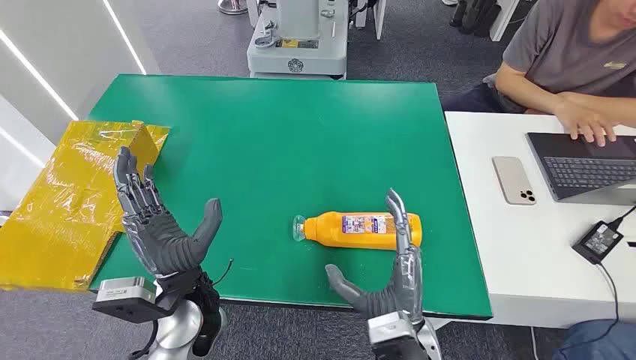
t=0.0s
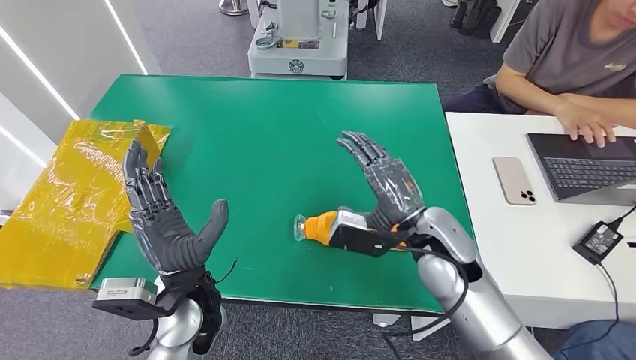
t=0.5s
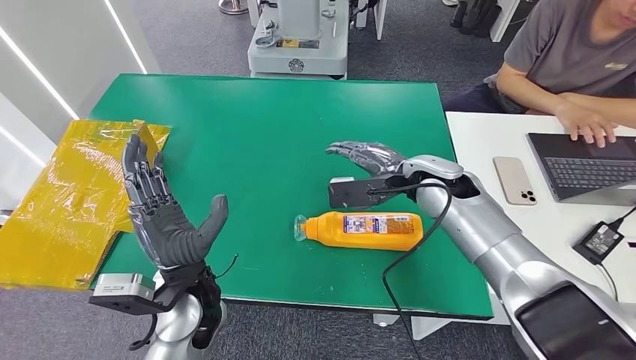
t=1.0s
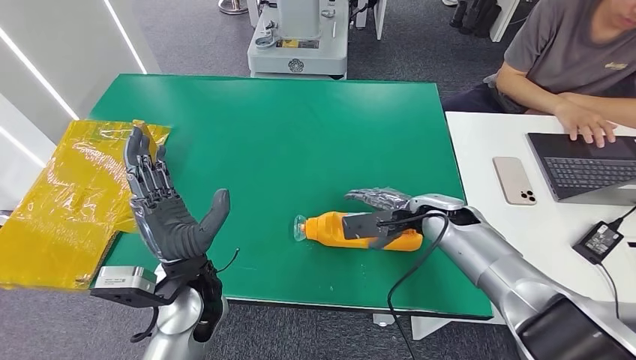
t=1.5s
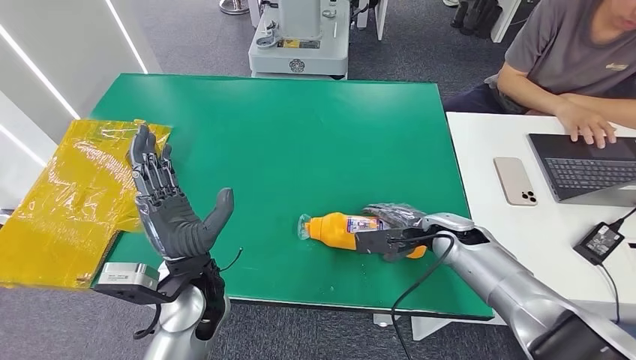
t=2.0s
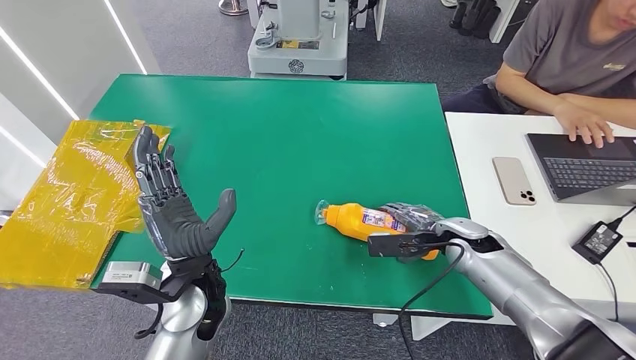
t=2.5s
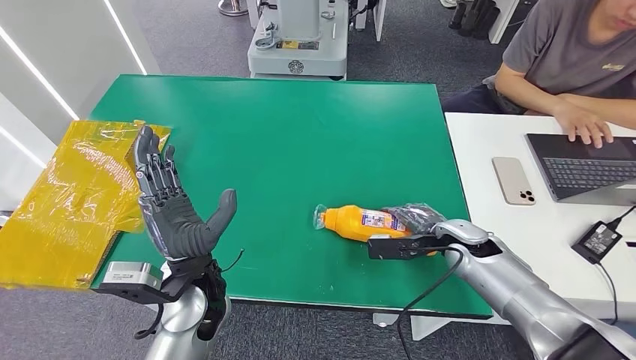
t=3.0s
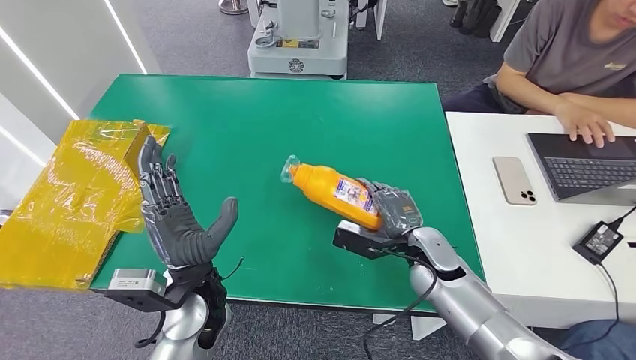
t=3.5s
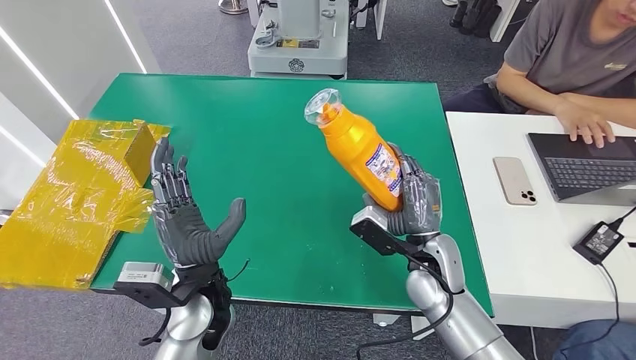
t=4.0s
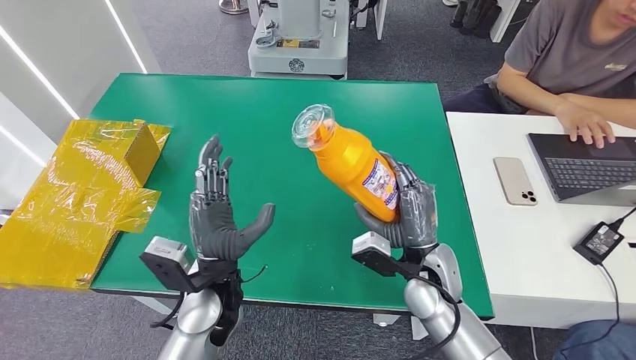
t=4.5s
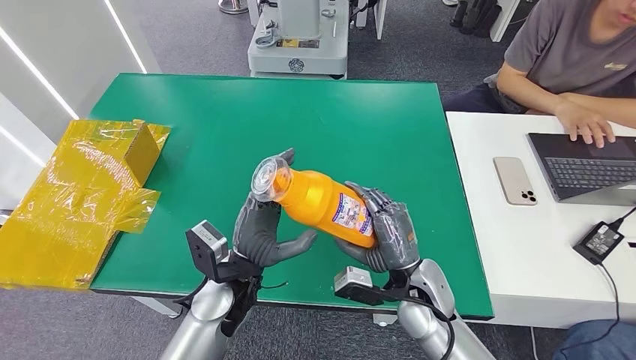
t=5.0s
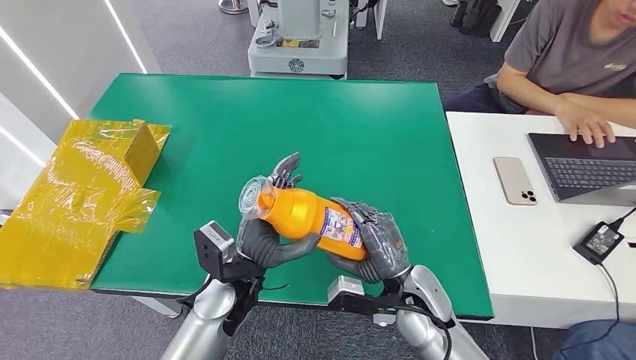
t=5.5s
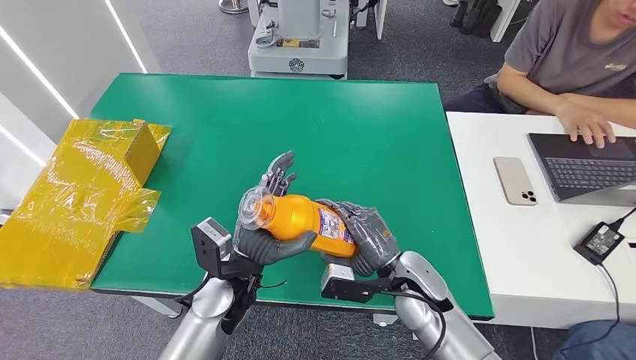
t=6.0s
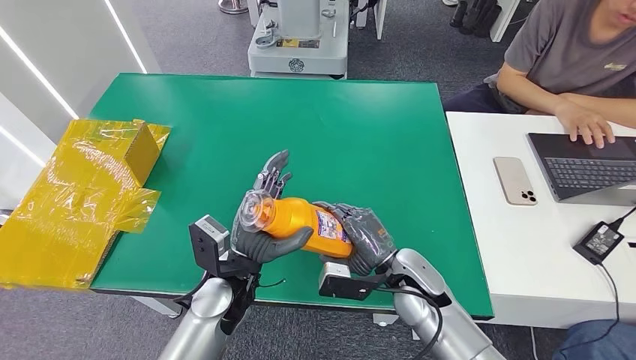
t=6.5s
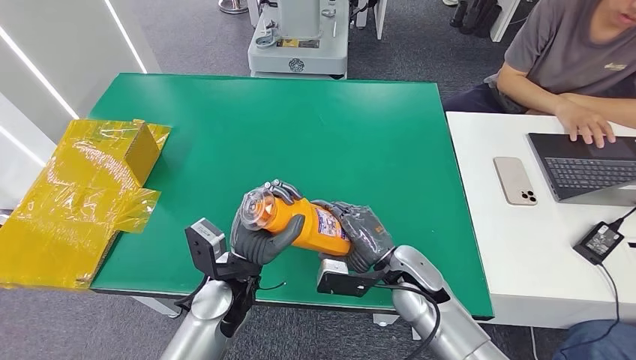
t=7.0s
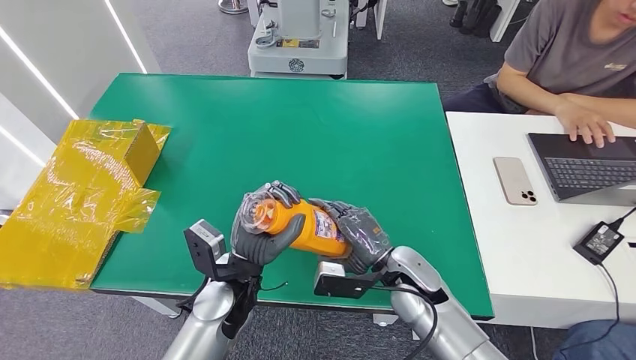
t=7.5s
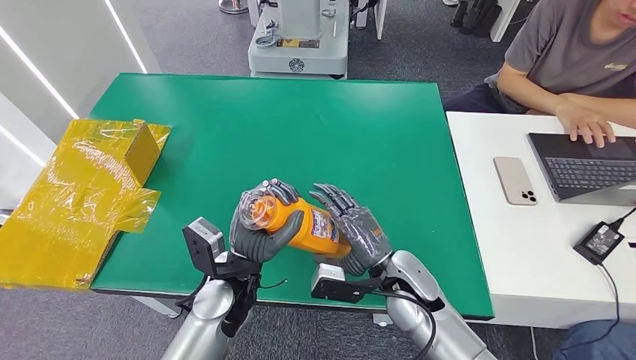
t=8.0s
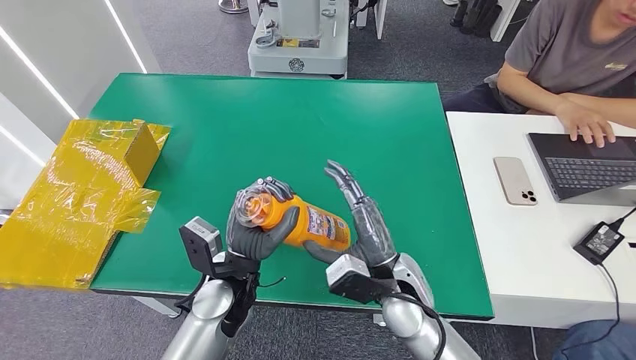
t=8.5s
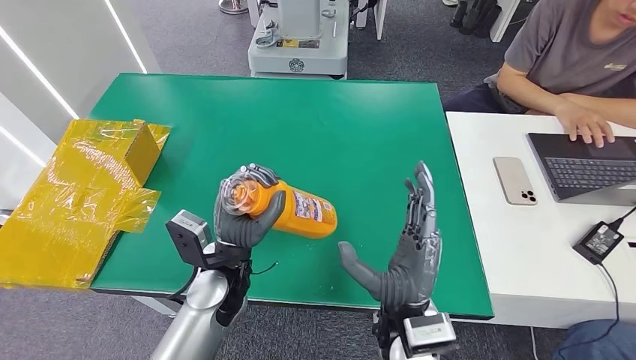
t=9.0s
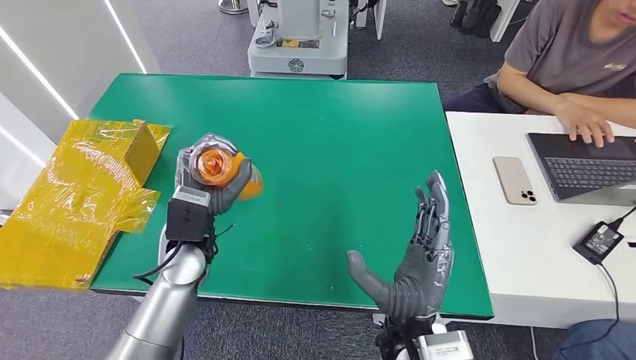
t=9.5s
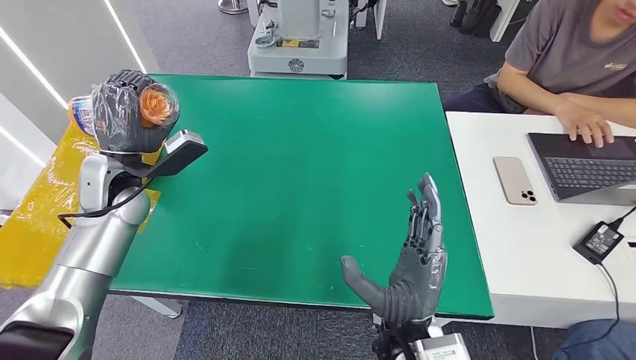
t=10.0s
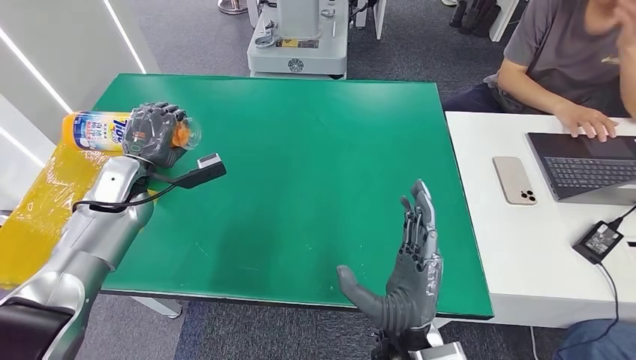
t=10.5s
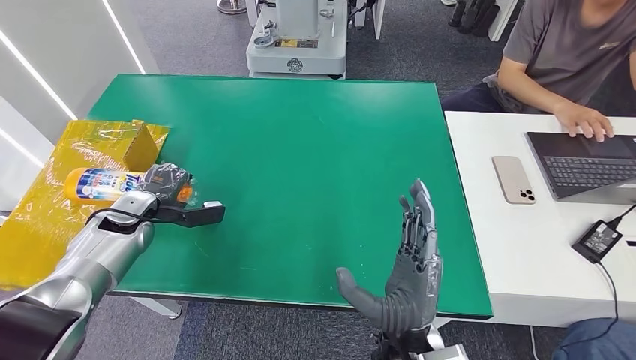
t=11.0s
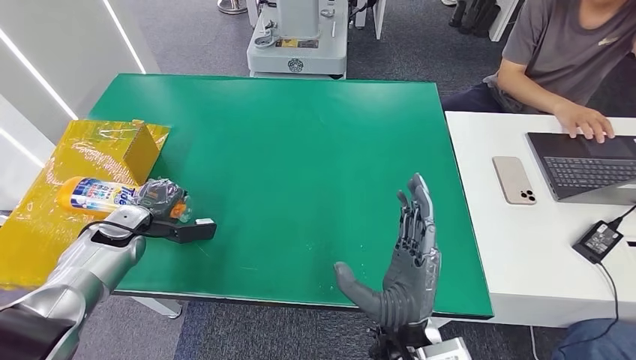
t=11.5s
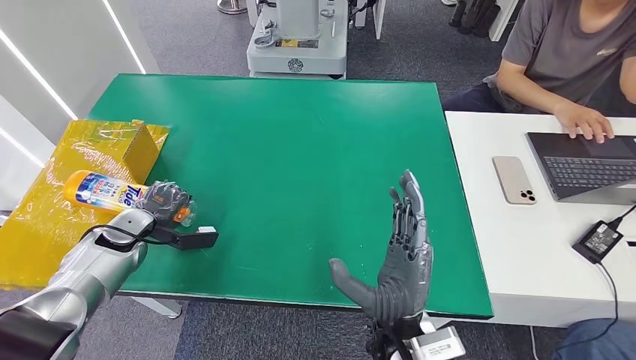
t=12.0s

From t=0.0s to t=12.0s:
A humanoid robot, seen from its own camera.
Step, from t=0.0s to t=4.0s: Pick up the bottle from the table.
From t=2.0s to t=4.0s: The right hand goes some 10 cm to the left and backward.
From t=6.0s to t=8.0s: The hands make only small movements.
From t=8.0s to t=10.0s: The left hand travels to the left, forward and upward by roughly 25 cm. Meanwhile the right hand travels backward, to the left and upward by roughly 15 cm.
From t=10.0s to t=12.0s: The left hand heads downward and to the left, covering approximately 15 cm.

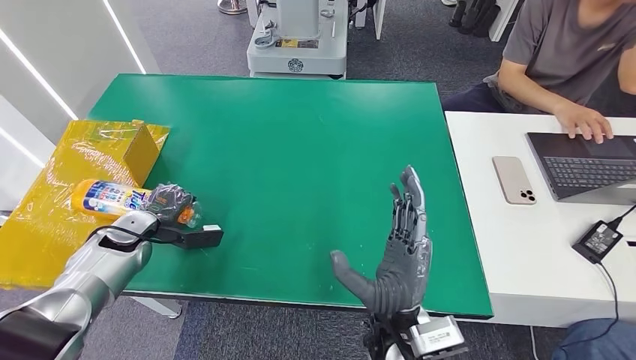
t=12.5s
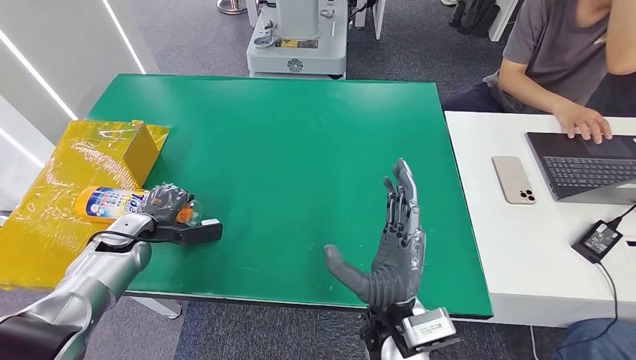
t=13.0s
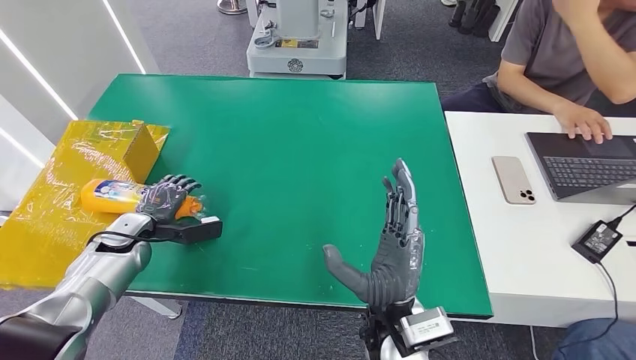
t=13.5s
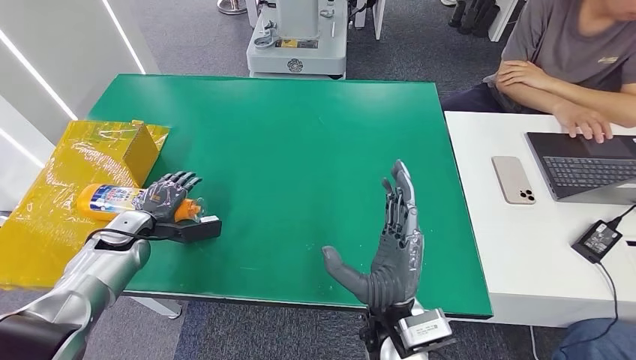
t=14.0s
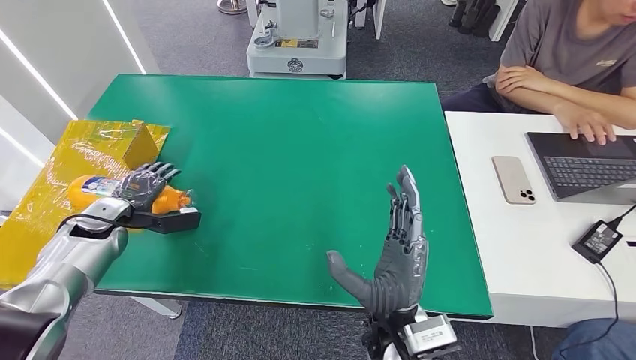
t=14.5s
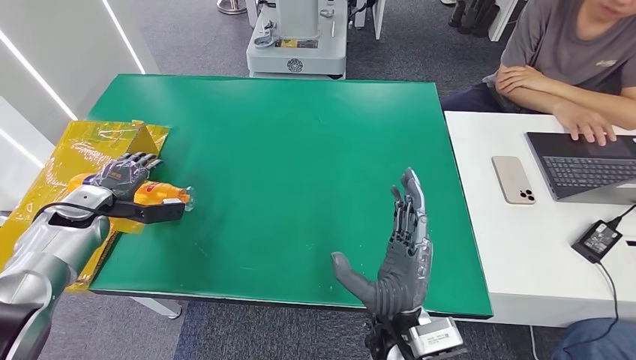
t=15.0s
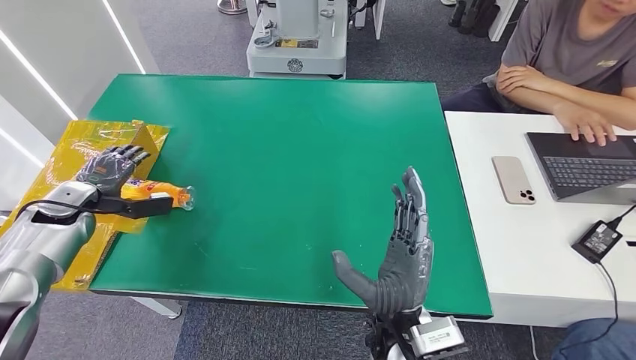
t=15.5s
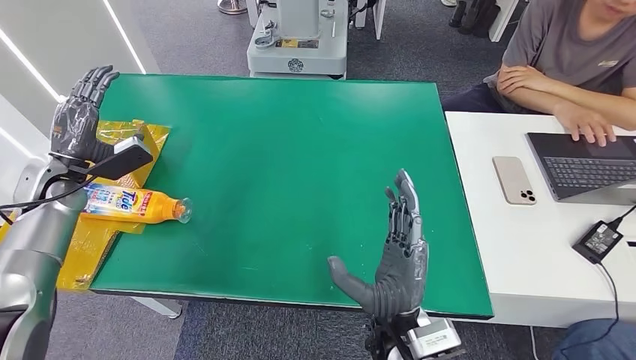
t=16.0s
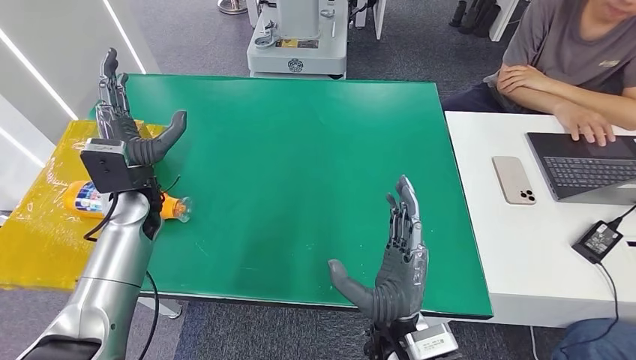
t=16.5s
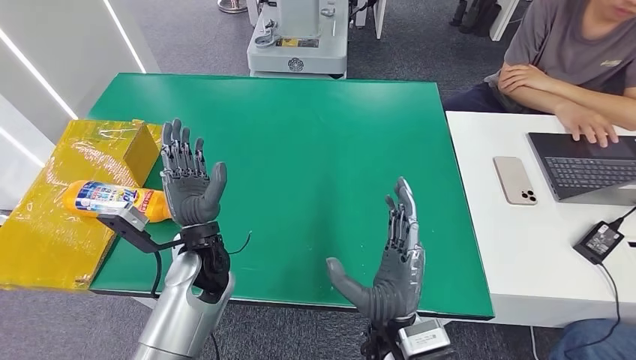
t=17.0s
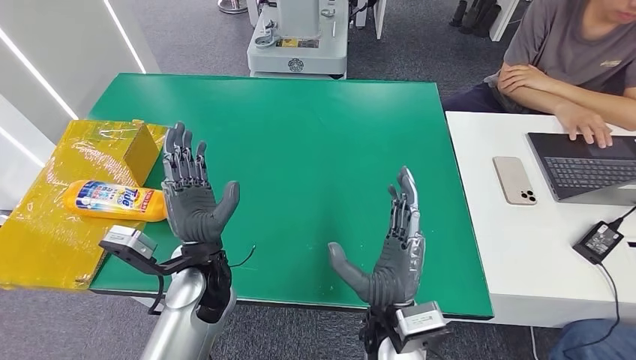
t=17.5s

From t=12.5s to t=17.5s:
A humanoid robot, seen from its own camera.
Step, from t=12.5s to t=17.5s: Turn the bottle to the front side.
From t=12.5s to t=15.0s: The left hand shifts about 10 cm to the left and upward.
From t=15.0s to t=17.5s: The left hand goes about 30 cm to the right.

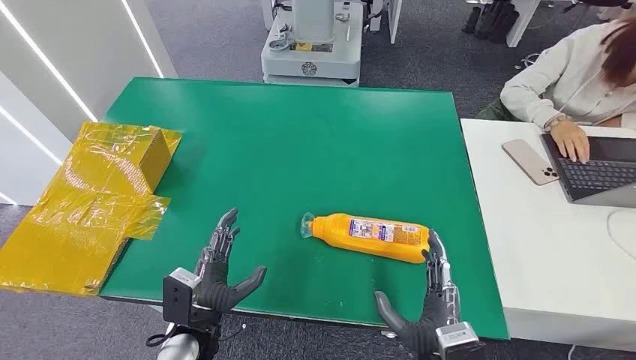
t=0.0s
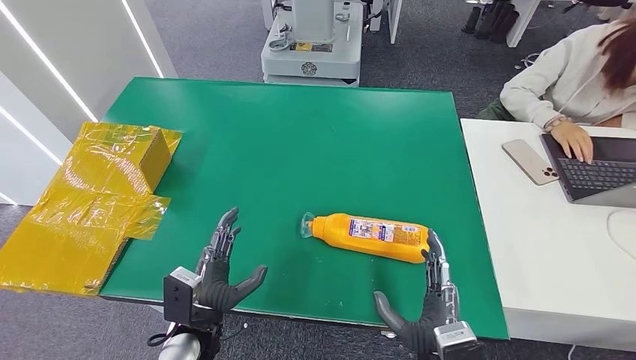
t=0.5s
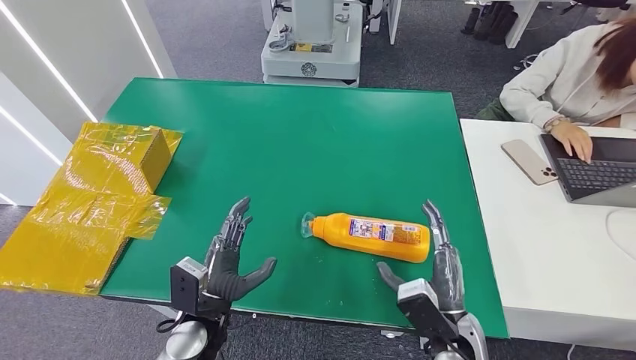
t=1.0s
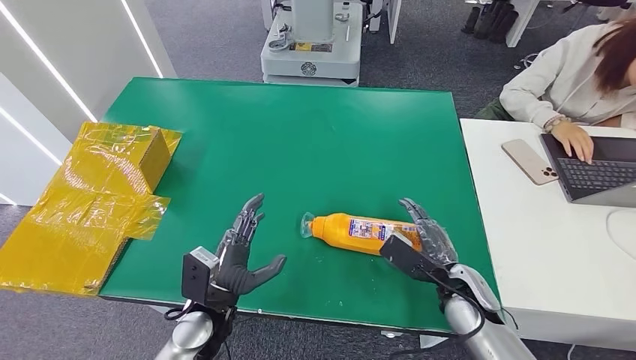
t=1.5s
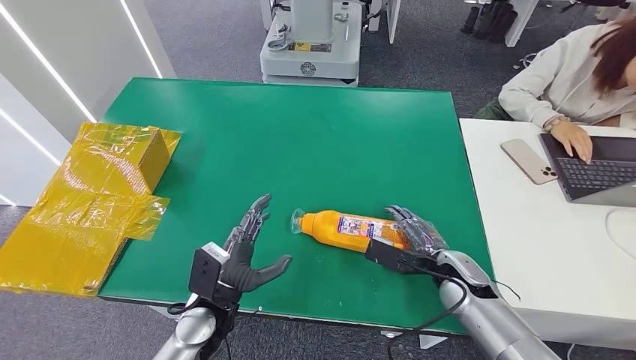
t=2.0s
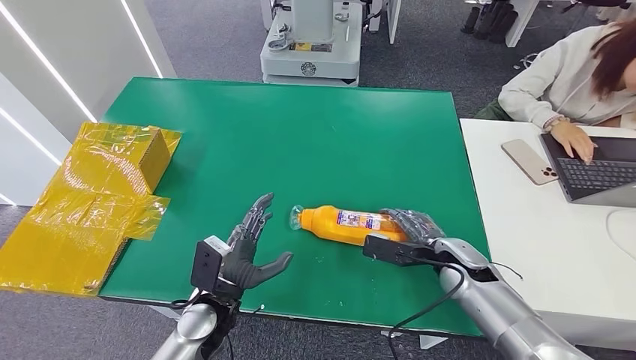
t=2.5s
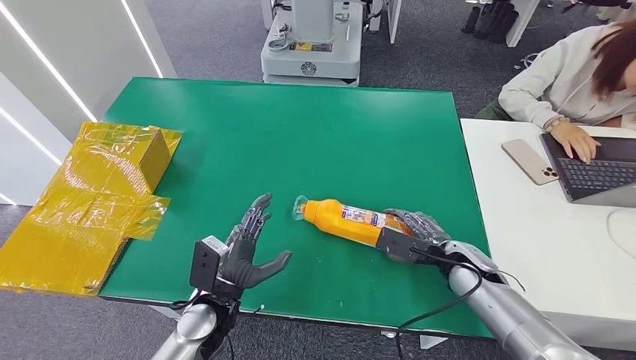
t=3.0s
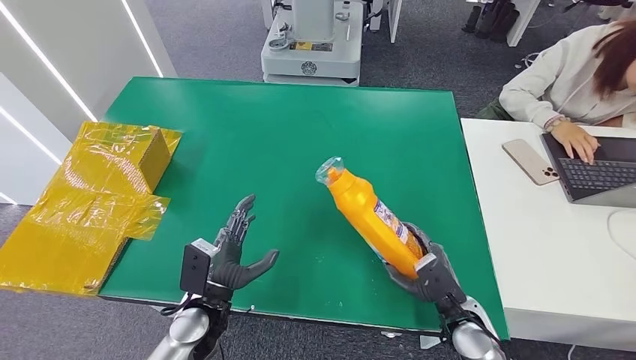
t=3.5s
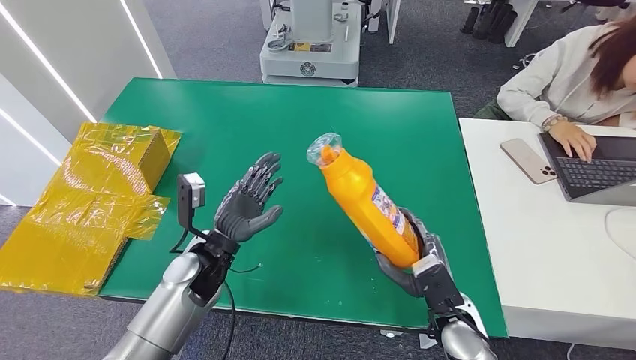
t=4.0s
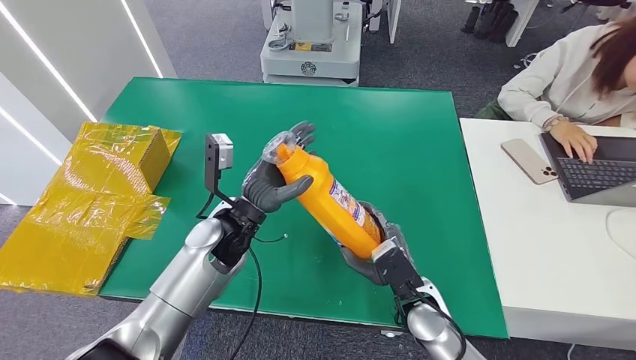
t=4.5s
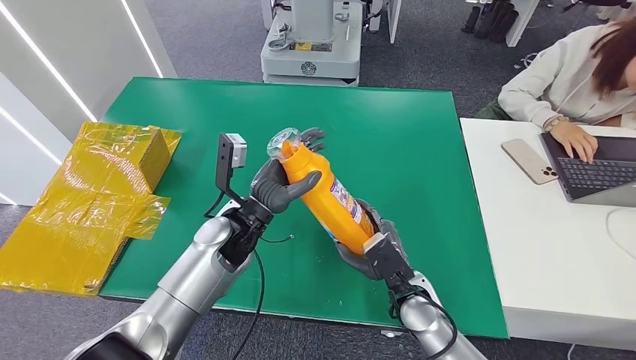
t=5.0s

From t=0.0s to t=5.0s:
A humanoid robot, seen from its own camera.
Step, from t=0.0s to t=3.5s: Pick up the bottle from the table.
From t=2.5s to t=5.0s: The right hand heads to the left and backward, covering about 10 cm; the left hand goes approximately 15 cm forward and upward.
